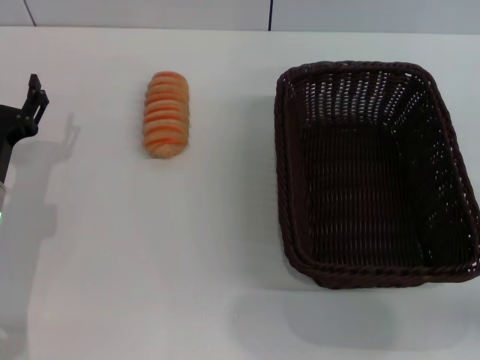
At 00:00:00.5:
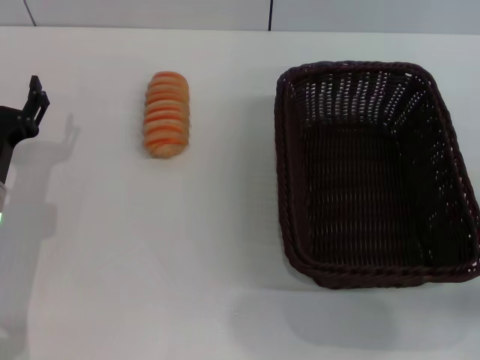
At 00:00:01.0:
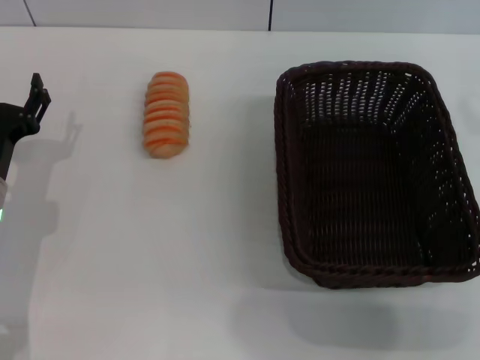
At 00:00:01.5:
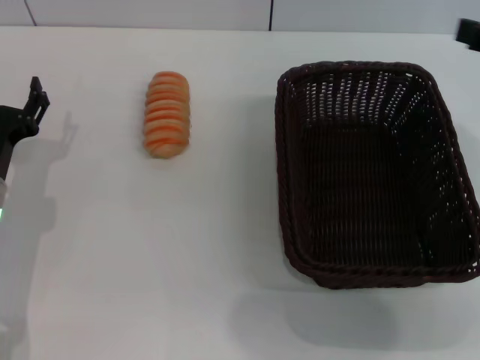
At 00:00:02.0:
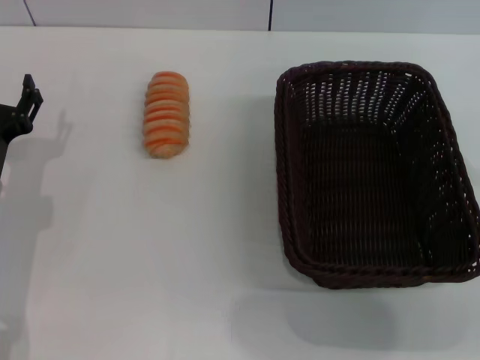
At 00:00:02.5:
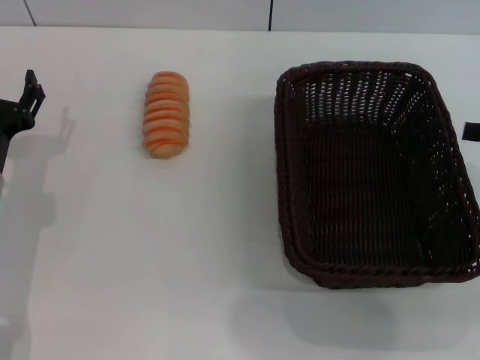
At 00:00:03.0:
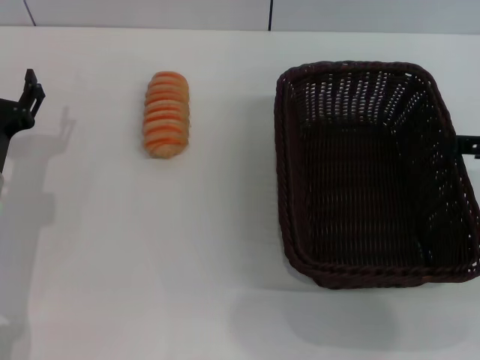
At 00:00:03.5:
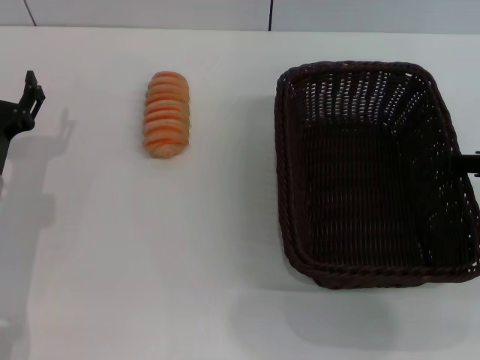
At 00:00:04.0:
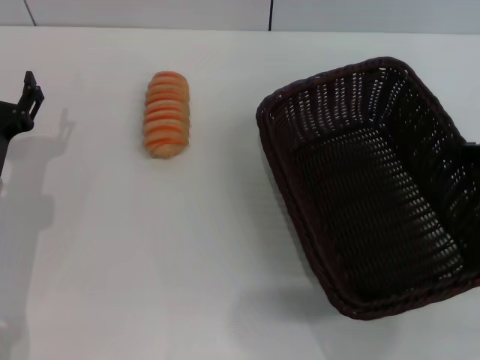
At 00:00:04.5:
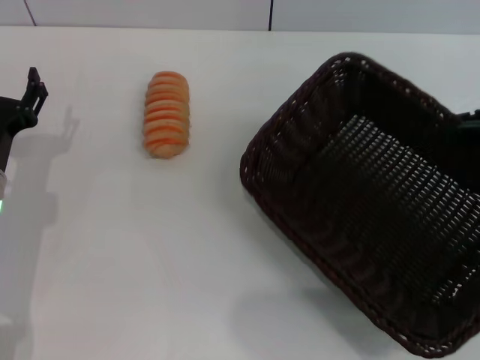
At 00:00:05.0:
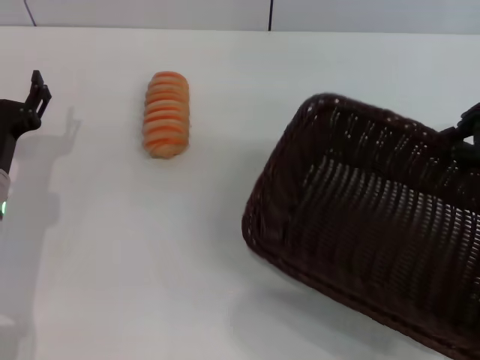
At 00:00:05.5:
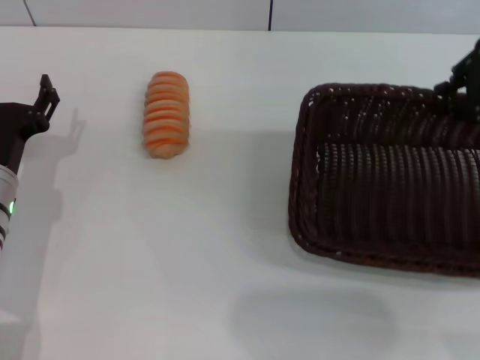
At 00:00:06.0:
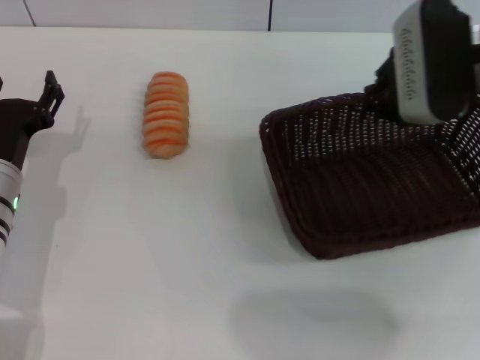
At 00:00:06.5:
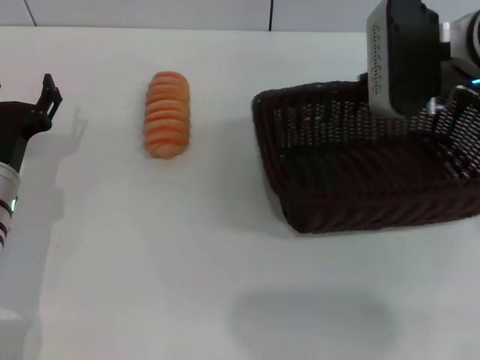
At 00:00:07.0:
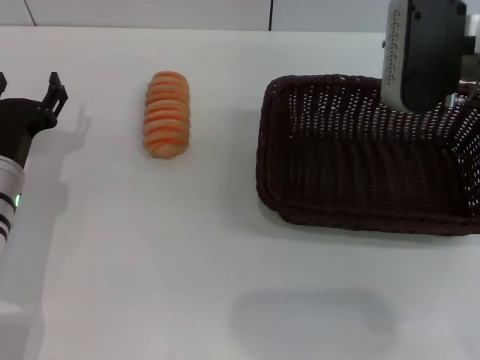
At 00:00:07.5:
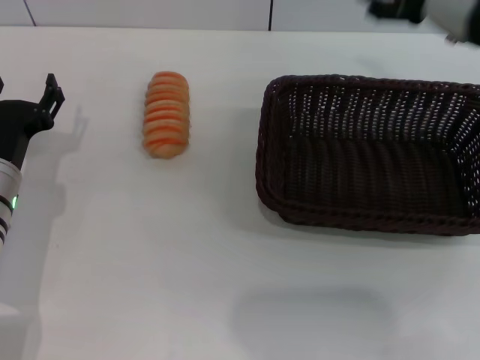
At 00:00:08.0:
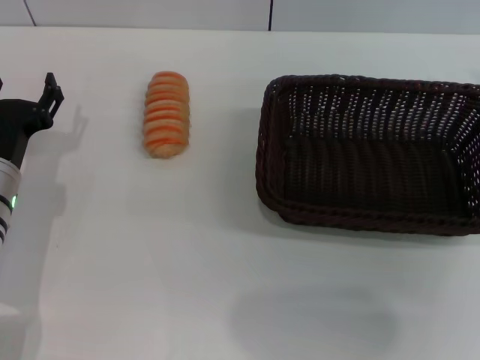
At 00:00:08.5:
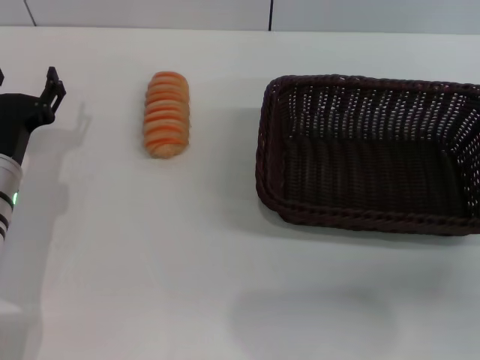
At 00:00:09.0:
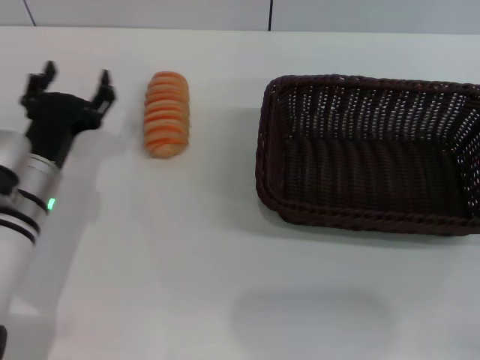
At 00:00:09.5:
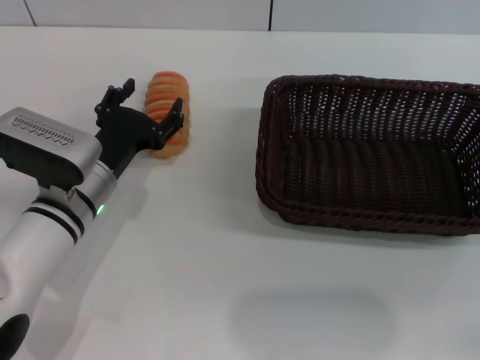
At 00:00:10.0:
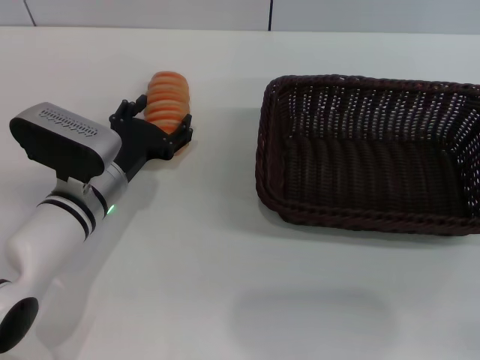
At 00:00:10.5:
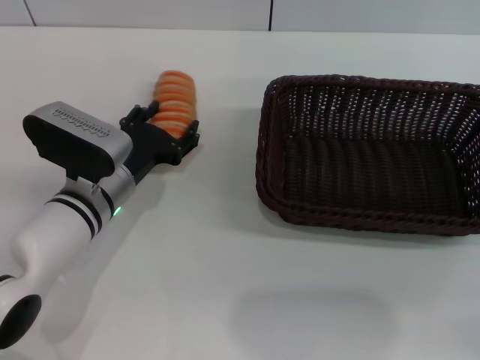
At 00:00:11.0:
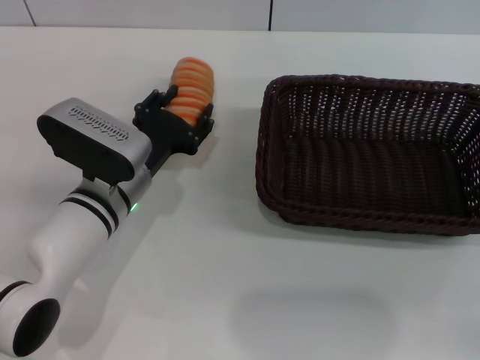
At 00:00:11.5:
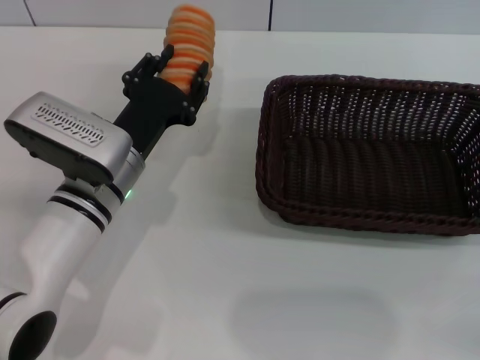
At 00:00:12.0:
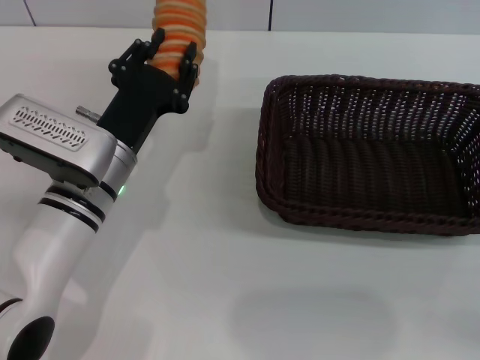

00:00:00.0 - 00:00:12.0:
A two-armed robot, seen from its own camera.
Step, 00:00:00.0 - 00:00:04.5: Pick up the dark basket with the right gripper.
Step, 00:00:05.0 - 00:00:07.0: Place the dark basket in the center of view with the right gripper.
Step, 00:00:07.5 - 00:00:11.0: Pick up the long bread with the left gripper.
00:00:02.0 - 00:00:04.0: The right gripper travels downward by about 5 cm, and closes up.
00:00:04.0 - 00:00:06.0: The right gripper goes roughly 15 cm to the left and forward.
00:00:06.0 - 00:00:08.0: The right gripper goes about 15 cm backward and to the right, and opens.
00:00:08.0 - 00:00:10.0: The right gripper is displaced downward, backward and to the right by approximately 25 cm. The left gripper is displaced to the right by approximately 10 cm.
00:00:10.0 - 00:00:12.0: The left gripper shifts by some 5 cm, and closes.

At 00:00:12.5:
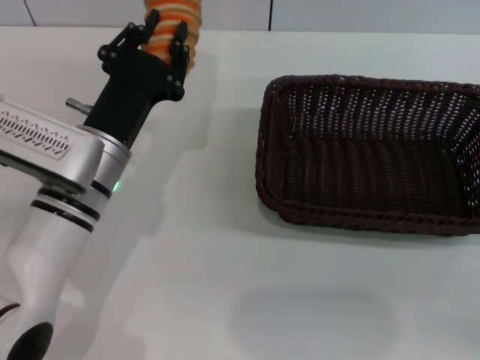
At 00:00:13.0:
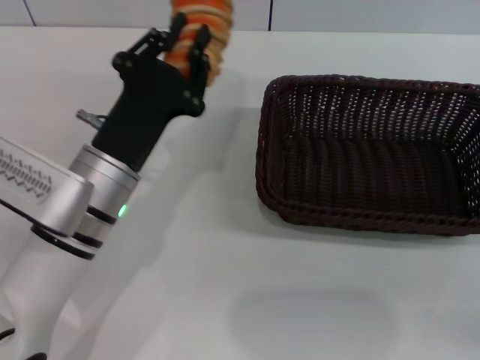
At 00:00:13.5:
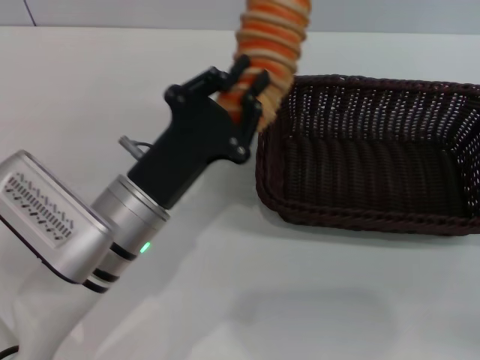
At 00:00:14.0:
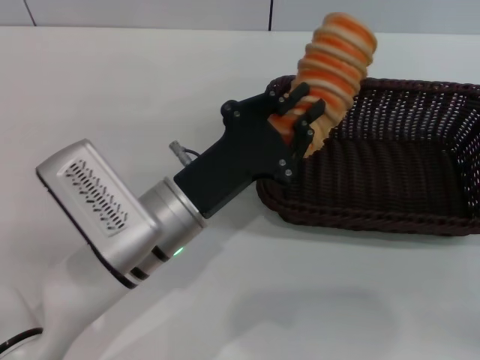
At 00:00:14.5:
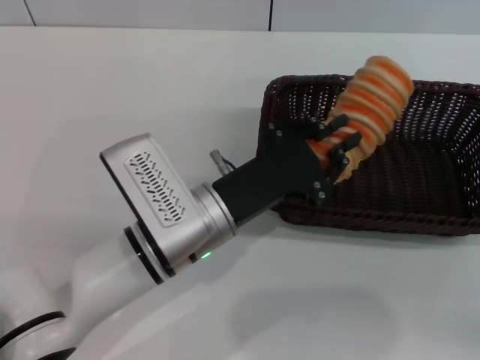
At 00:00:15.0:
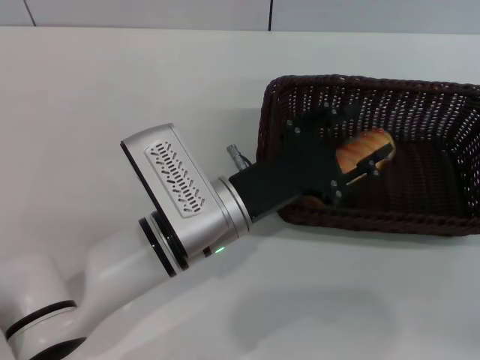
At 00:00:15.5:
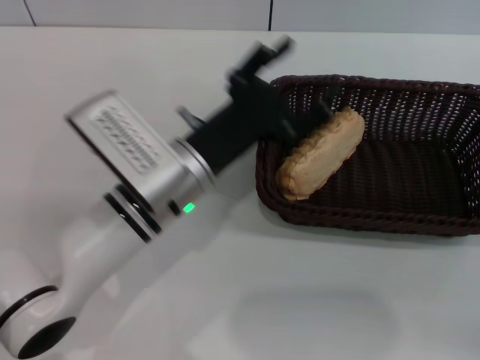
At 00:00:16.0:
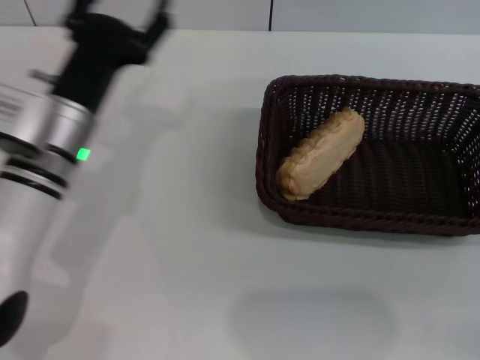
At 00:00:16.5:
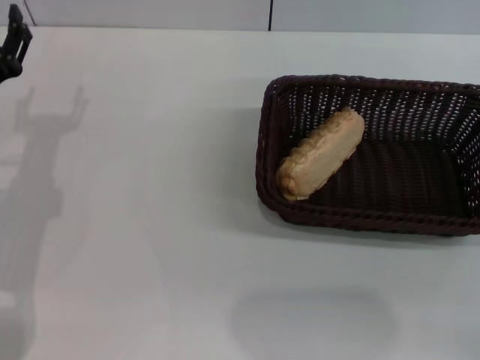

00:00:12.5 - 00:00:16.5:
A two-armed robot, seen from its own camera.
Step, 00:00:12.5 - 00:00:15.0: Place the long bread into the dark basket with the left gripper.
00:00:12.5 - 00:00:14.5: The left gripper shifts approximately 10 cm to the right.
00:00:14.5 - 00:00:16.5: The left gripper is displaced to the left by roughly 20 cm, and opens up.

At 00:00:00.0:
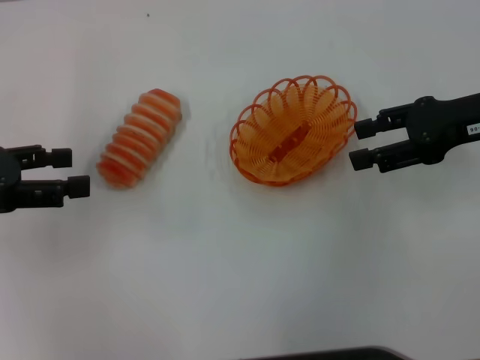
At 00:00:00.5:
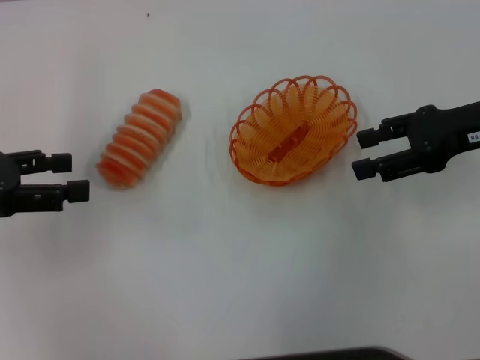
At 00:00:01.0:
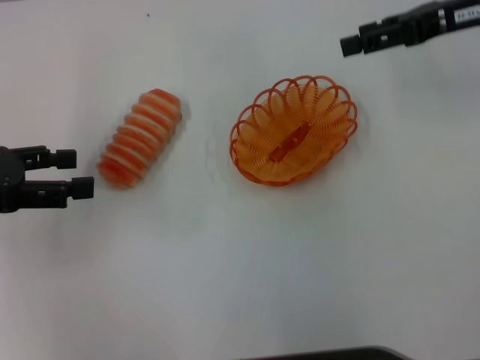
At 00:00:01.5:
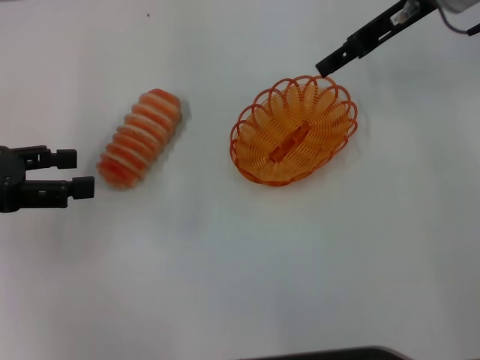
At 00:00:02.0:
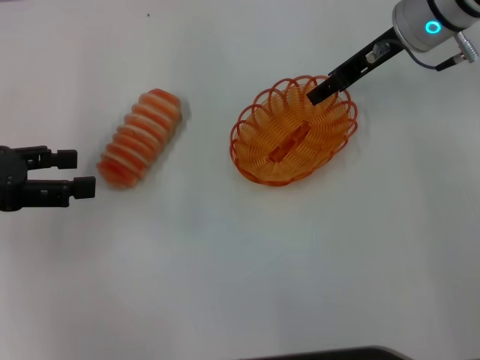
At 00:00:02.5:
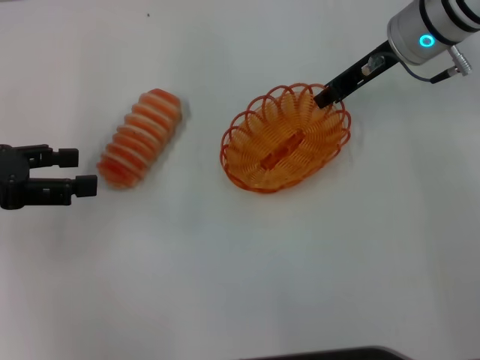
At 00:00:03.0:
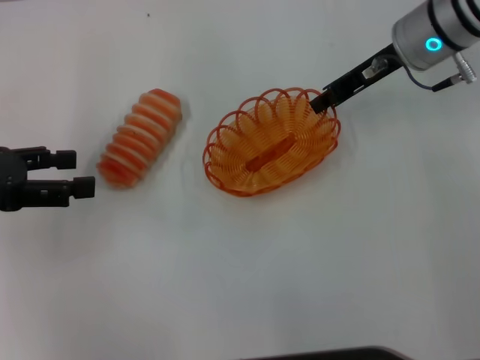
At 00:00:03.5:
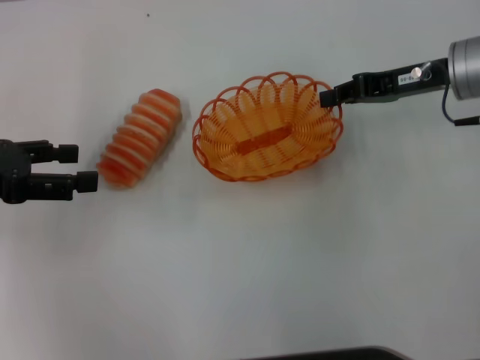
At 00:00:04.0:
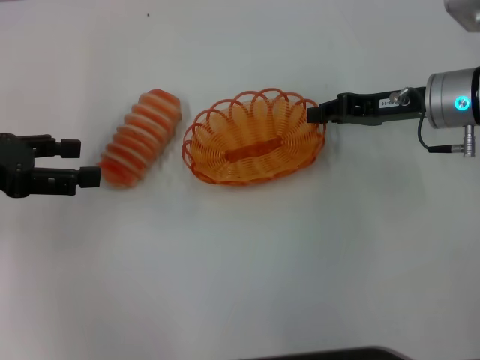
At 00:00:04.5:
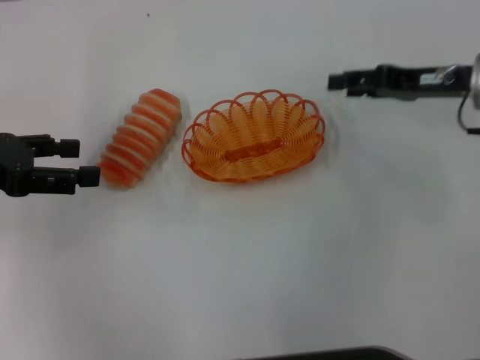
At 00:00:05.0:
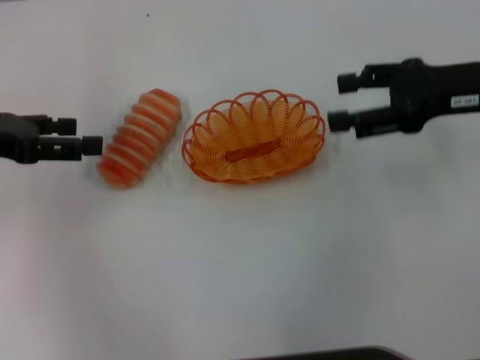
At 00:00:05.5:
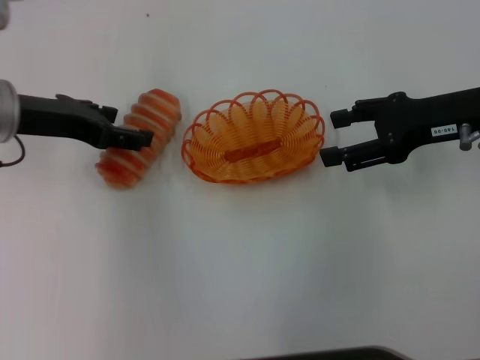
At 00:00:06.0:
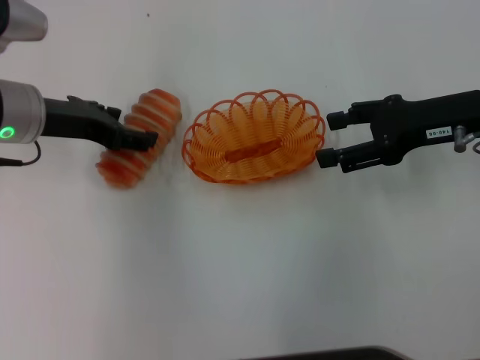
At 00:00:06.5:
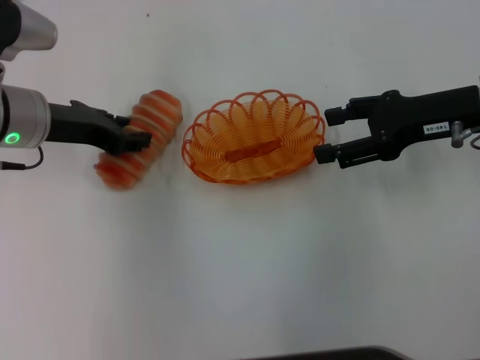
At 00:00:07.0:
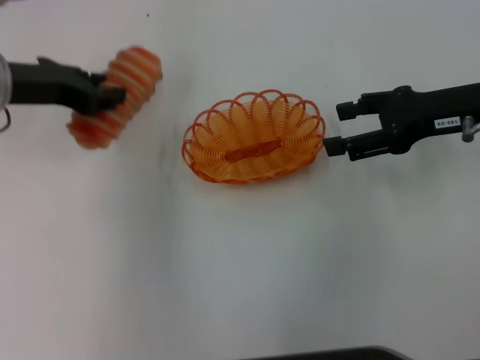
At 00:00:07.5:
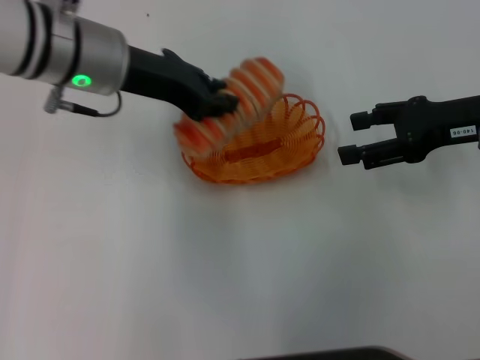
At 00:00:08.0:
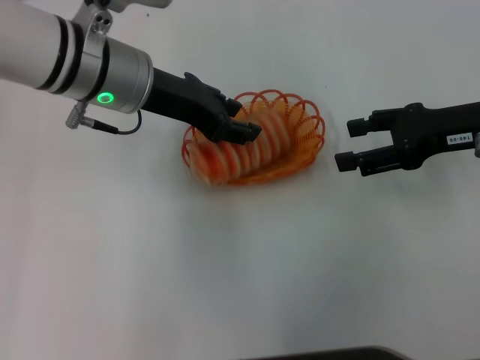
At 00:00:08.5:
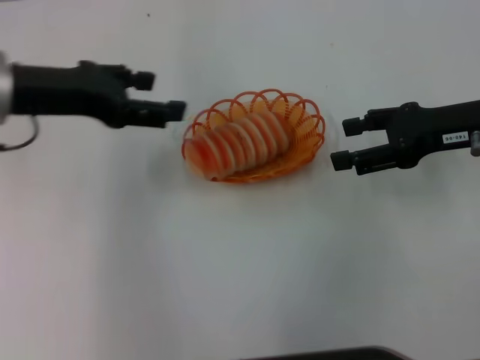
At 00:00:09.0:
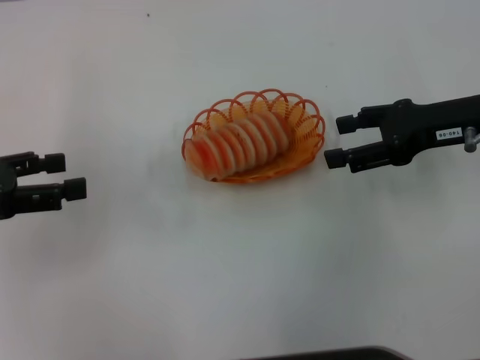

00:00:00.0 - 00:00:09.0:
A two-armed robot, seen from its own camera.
Step, 00:00:00.0 - 00:00:03.0: Pick up the basket with the right gripper.
Step, 00:00:03.5 - 00:00:04.5: Place the basket in the center of view with the right gripper.
Step, 00:00:05.0 - 00:00:07.0: Pick up the long bread with the left gripper.
Step, 00:00:07.5 - 00:00:08.0: Place the long bread into the basket with the left gripper.
00:00:00.0 - 00:00:02.0: The right gripper shifts some 15 cm forward and to the left.
00:00:02.0 - 00:00:04.5: The right gripper shifts some 10 cm to the right, backward and downward, and closes up.
00:00:04.5 - 00:00:07.0: The right gripper opens up, while the left gripper goes about 10 cm to the right and forward, and closes.
00:00:07.0 - 00:00:09.0: The left gripper heads to the left and backward, covering roughly 15 cm, and opens its fingers.
